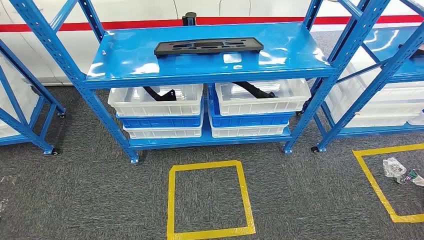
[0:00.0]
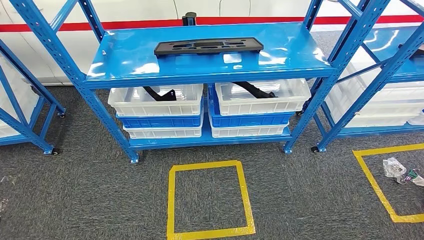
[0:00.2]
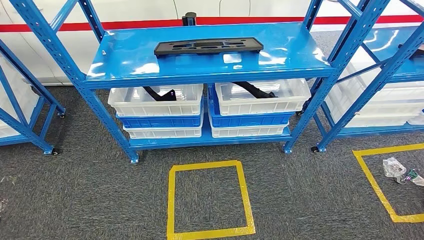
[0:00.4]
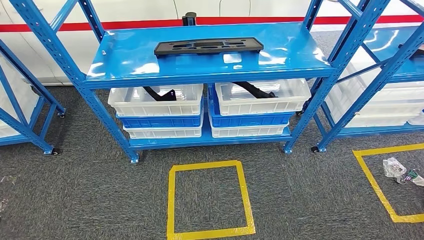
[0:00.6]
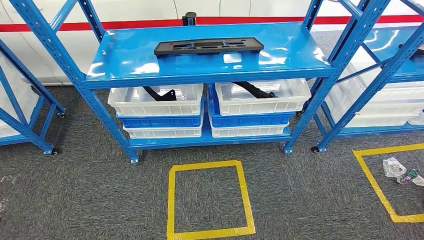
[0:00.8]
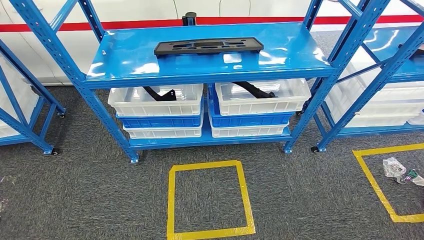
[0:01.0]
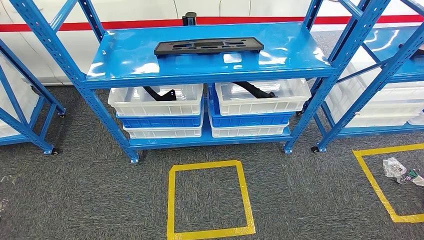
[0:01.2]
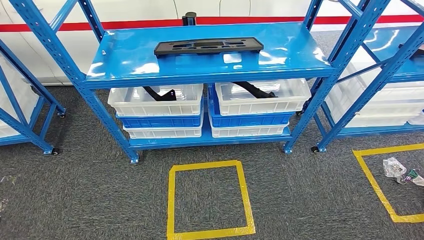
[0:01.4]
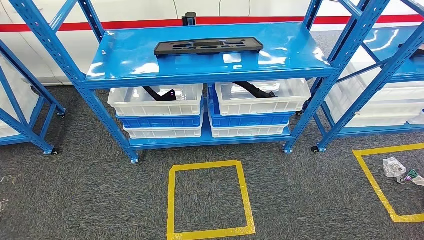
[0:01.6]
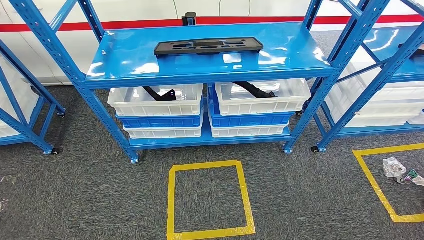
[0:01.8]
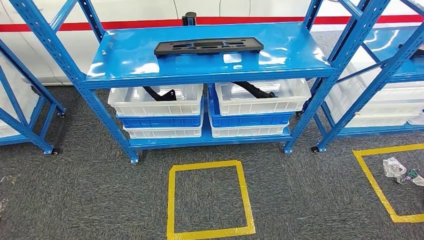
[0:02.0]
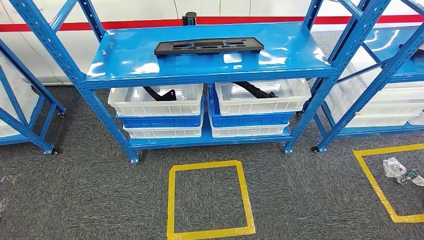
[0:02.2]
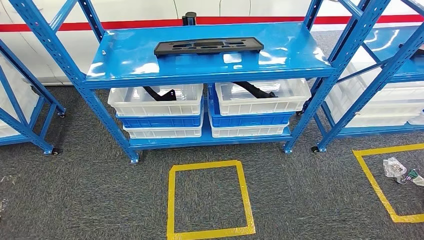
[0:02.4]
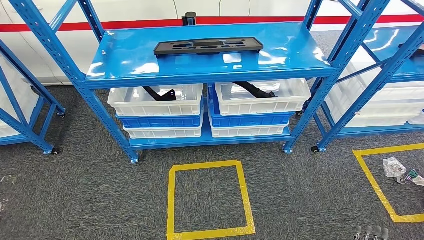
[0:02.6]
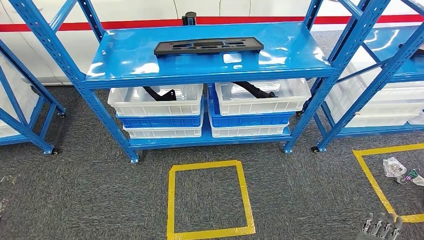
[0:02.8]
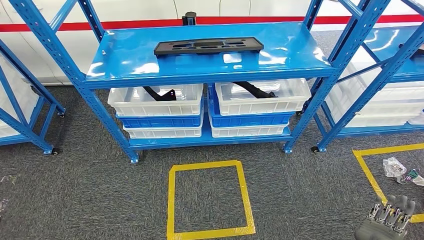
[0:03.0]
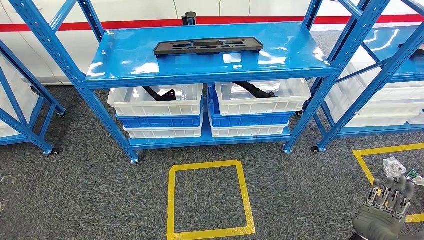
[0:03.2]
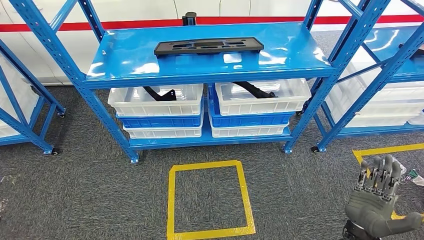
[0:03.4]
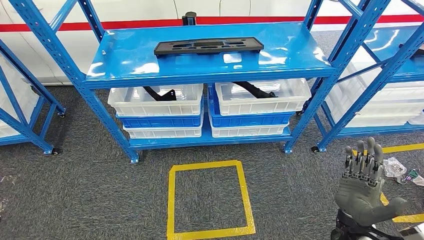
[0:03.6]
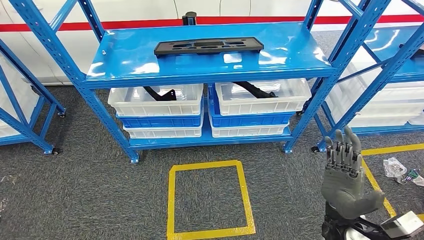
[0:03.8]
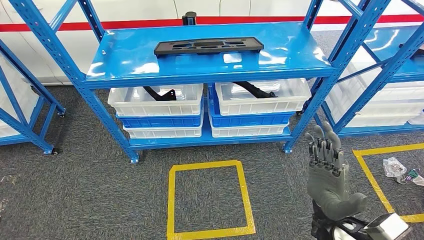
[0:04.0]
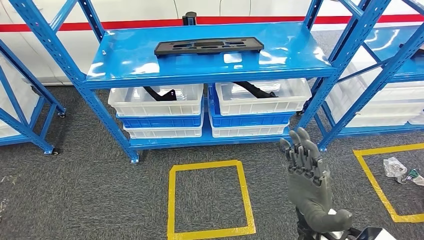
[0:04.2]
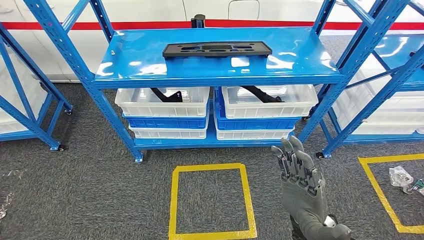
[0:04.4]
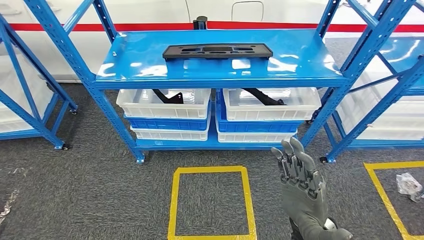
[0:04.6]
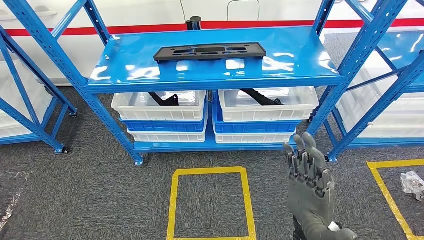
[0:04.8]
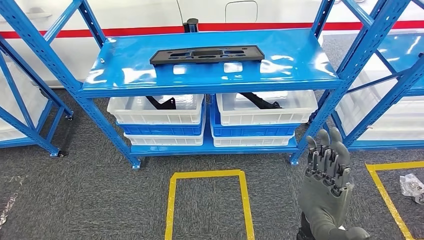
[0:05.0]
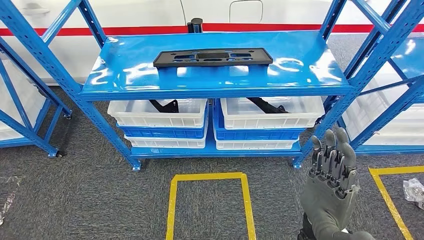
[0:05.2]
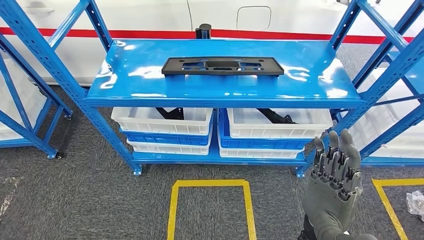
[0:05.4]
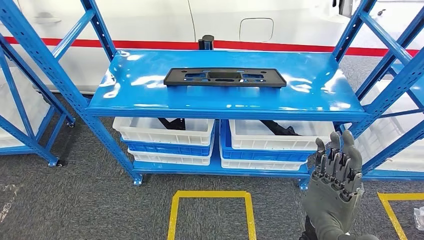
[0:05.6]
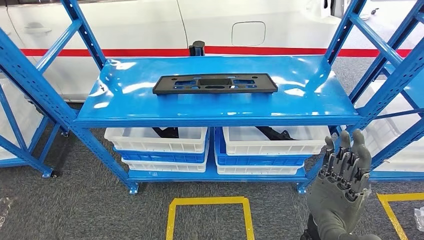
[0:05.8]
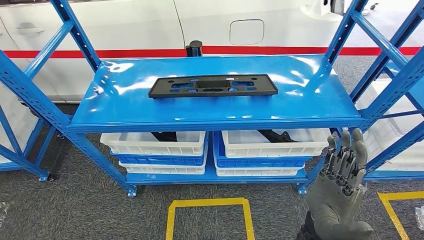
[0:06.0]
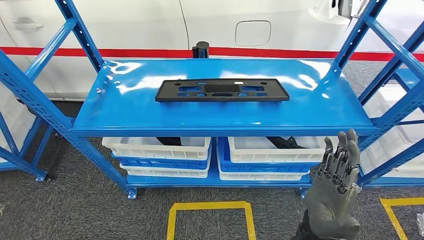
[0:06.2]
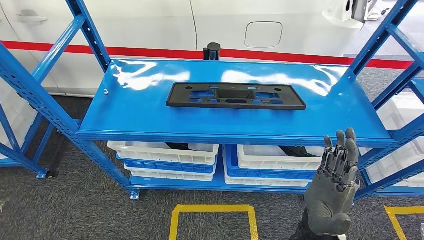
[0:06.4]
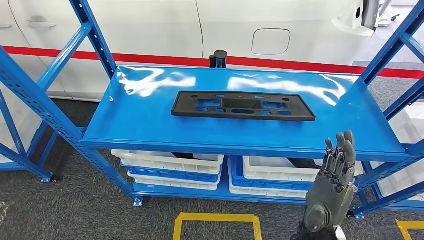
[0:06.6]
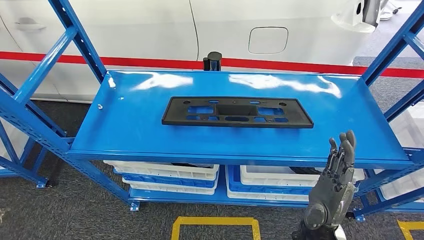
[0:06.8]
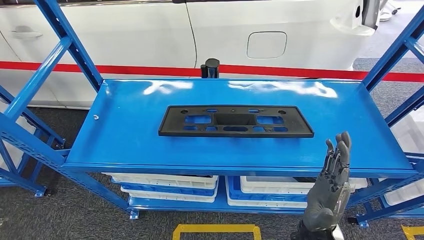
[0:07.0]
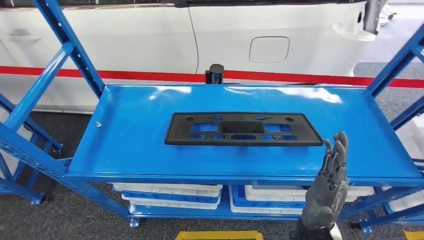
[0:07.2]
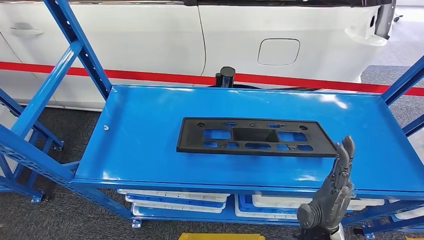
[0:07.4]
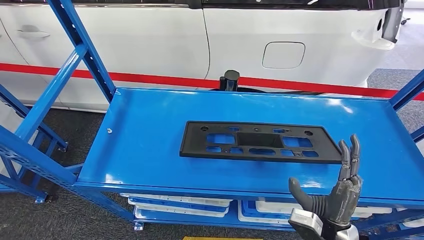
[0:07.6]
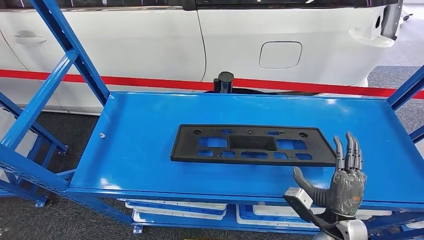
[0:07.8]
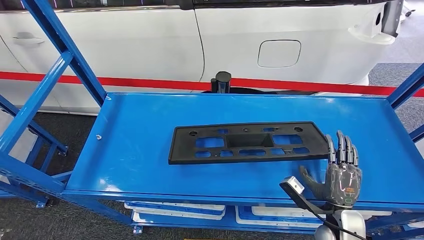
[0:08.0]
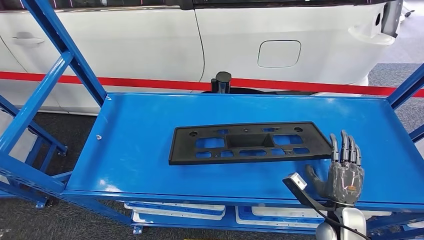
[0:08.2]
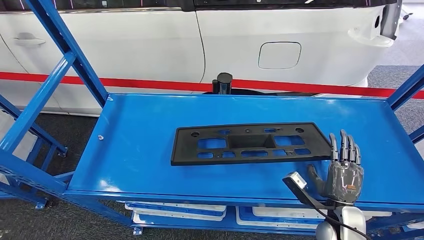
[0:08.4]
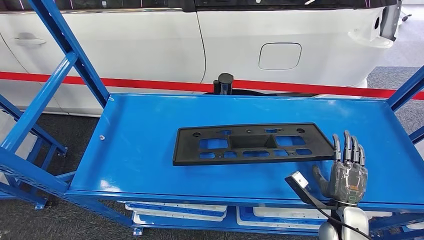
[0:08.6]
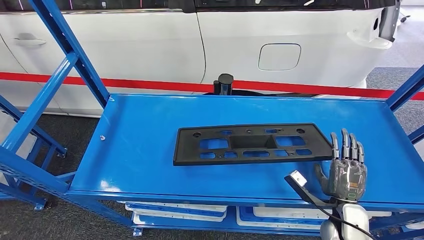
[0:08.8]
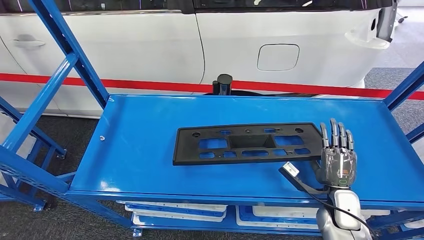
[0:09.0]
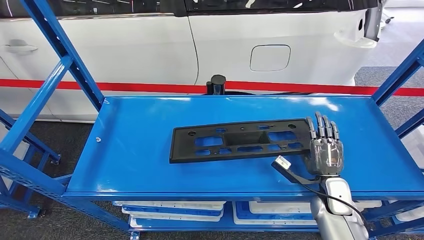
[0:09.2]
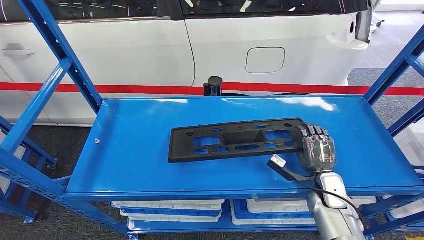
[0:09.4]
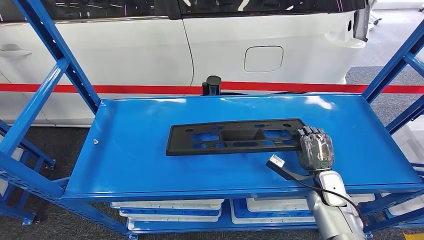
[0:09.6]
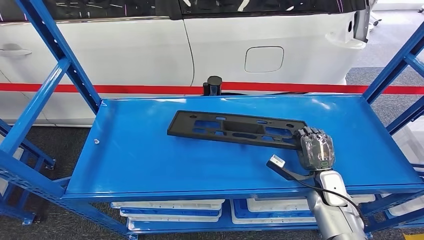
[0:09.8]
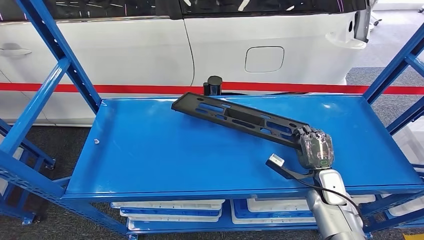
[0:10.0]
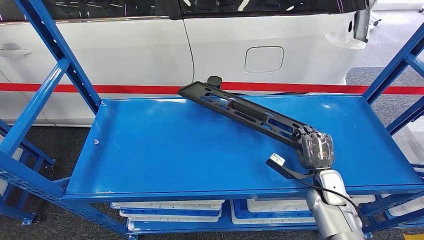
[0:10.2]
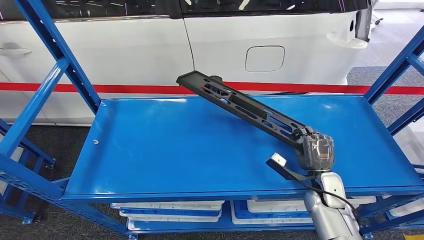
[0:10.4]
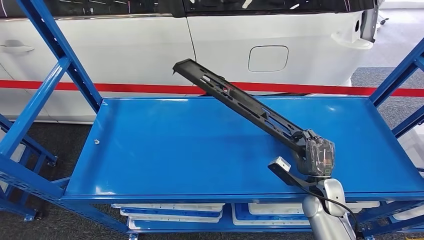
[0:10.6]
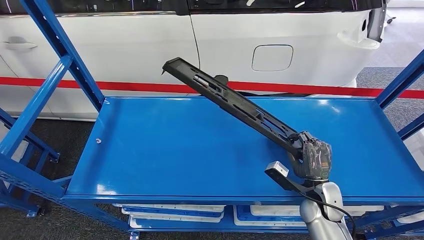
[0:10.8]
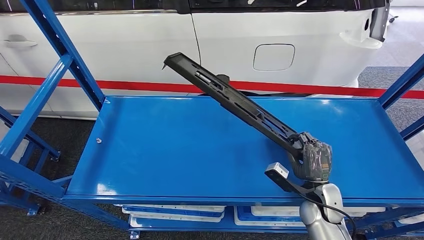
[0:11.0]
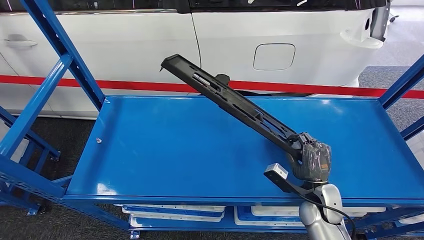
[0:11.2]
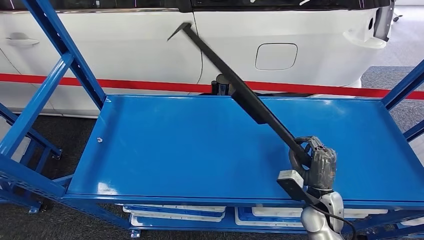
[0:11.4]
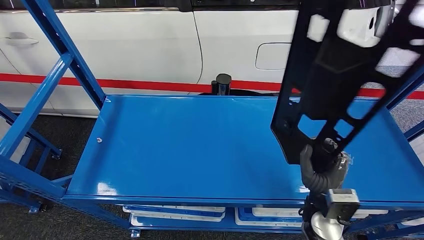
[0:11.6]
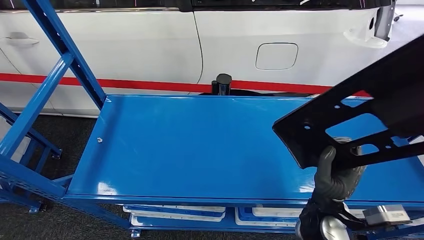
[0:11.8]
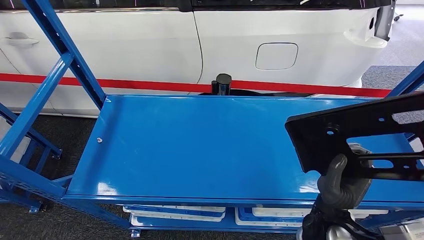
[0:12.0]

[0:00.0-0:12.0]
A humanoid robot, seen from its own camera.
0:01.6 to 0:03.0: The right hand is displaced upward, forward and to the right by approximately 20 cm.

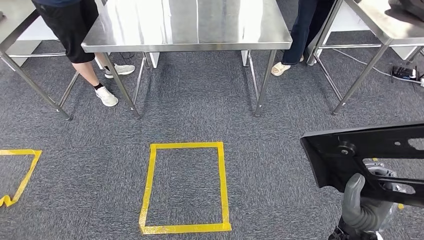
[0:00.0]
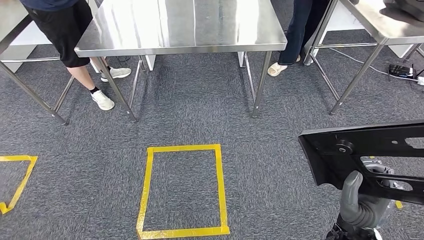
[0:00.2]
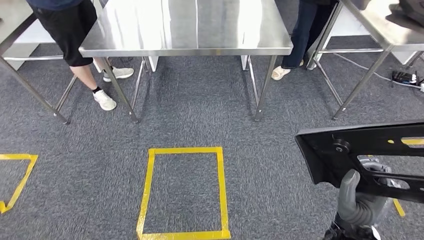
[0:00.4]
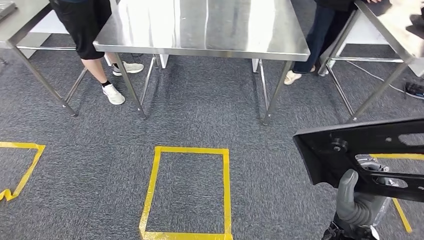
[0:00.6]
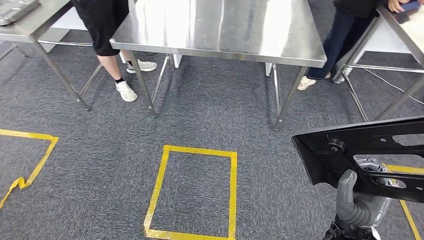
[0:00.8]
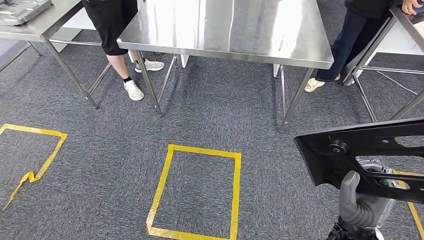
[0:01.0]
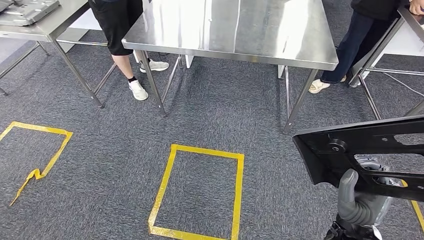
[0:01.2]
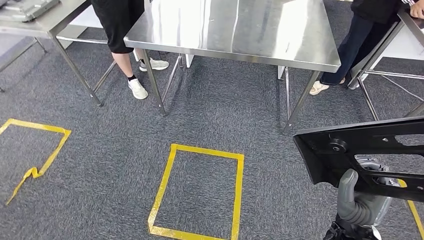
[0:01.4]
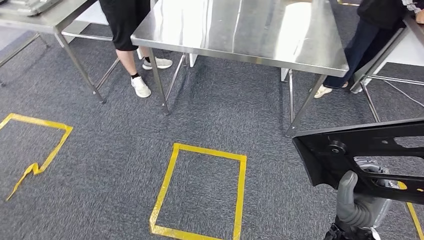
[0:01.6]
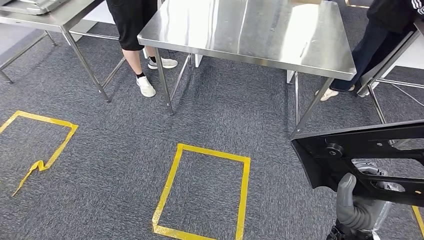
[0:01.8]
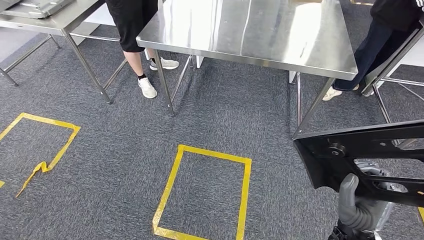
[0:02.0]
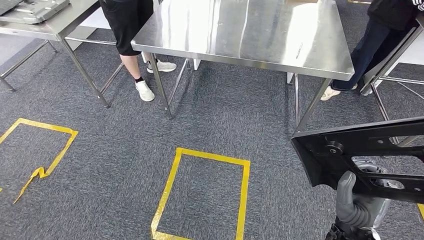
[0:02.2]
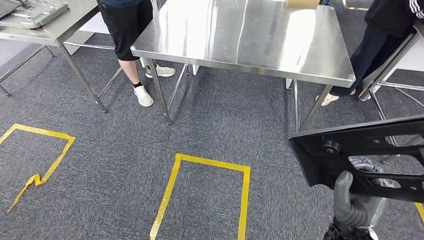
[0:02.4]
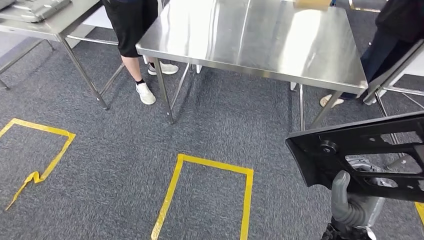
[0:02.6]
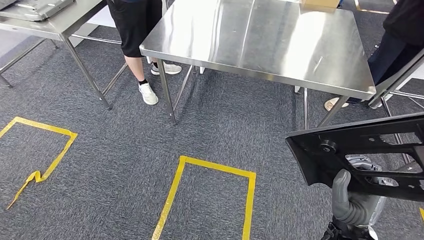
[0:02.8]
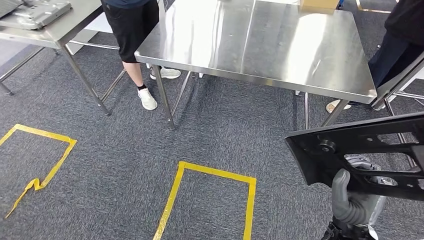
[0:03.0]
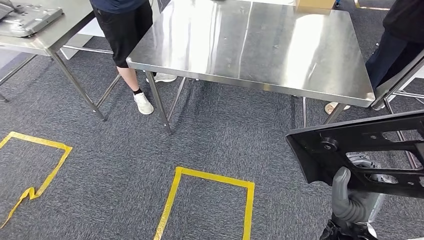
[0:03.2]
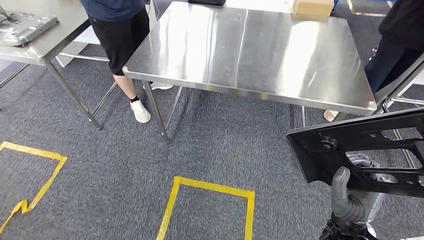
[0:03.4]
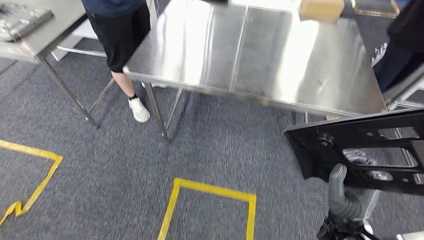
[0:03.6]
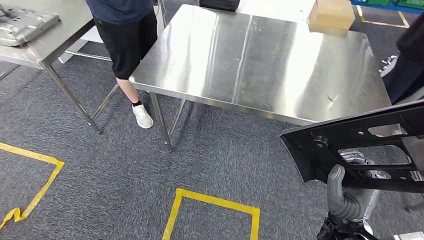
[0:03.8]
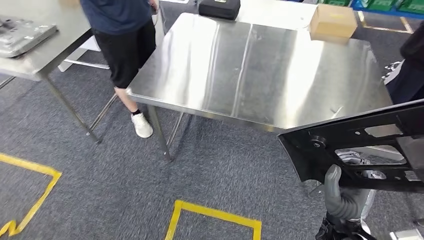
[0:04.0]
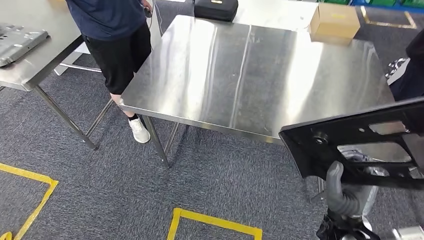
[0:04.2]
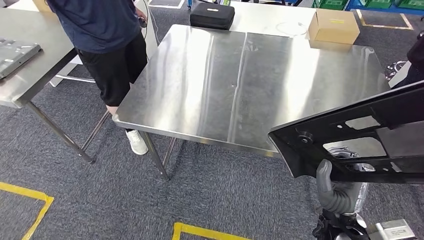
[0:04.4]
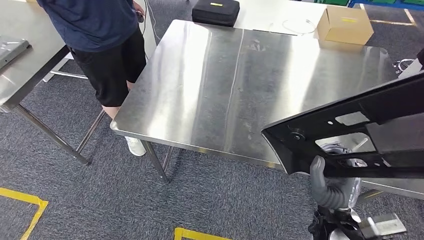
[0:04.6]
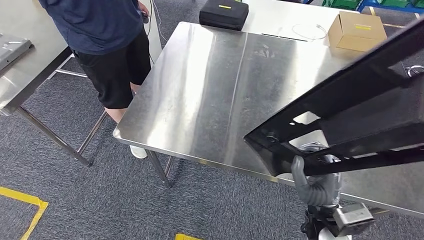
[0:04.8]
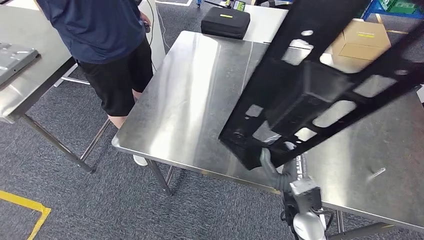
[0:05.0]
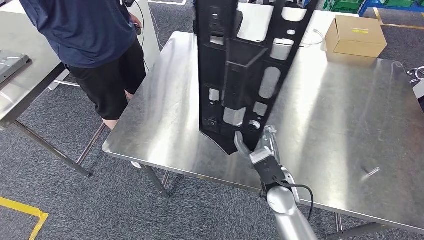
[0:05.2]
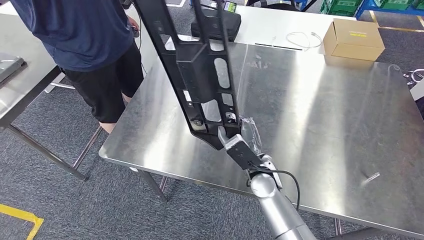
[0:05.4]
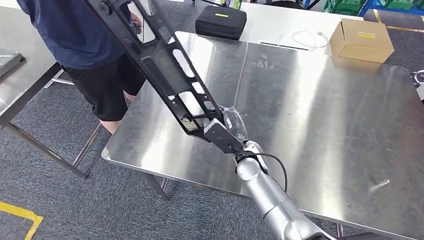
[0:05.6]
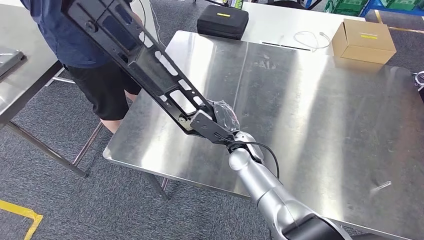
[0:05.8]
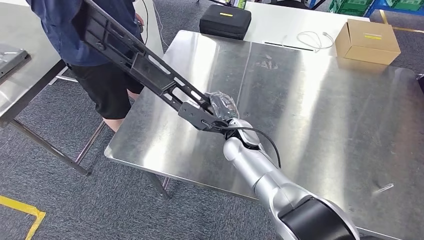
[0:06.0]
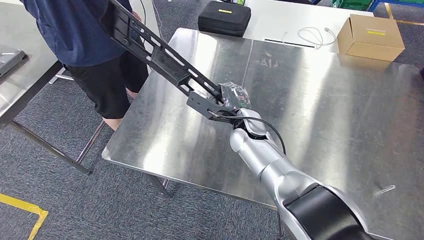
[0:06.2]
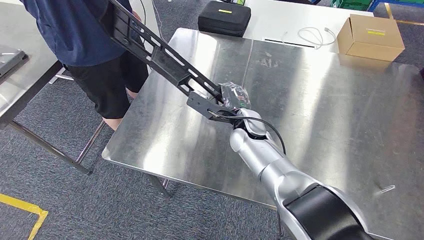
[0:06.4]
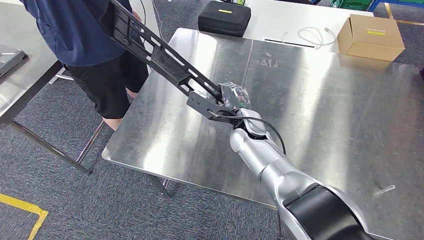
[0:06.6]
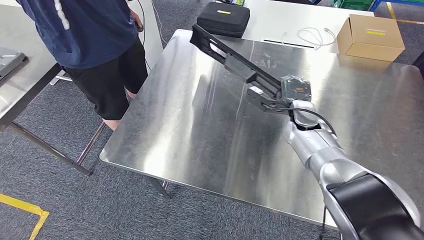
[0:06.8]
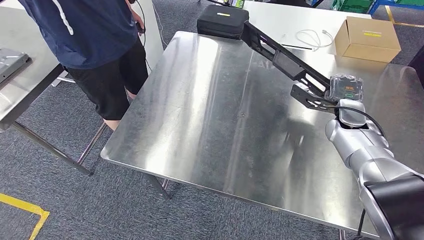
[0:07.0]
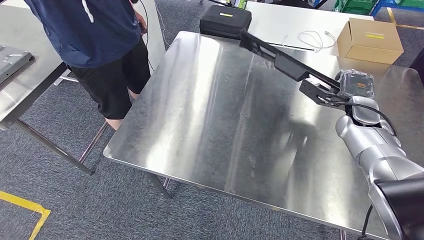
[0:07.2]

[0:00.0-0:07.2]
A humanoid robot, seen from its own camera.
Step, 0:00.0 to 0:04.2: Move the large material to the workbench.
